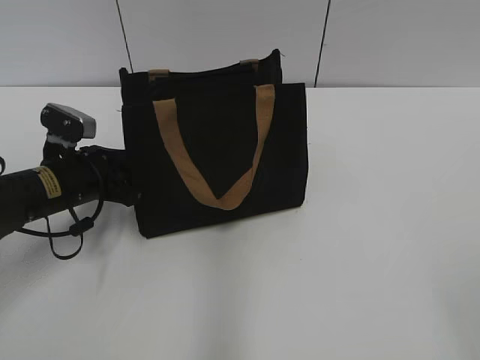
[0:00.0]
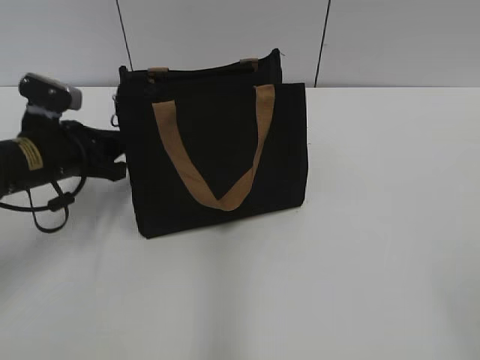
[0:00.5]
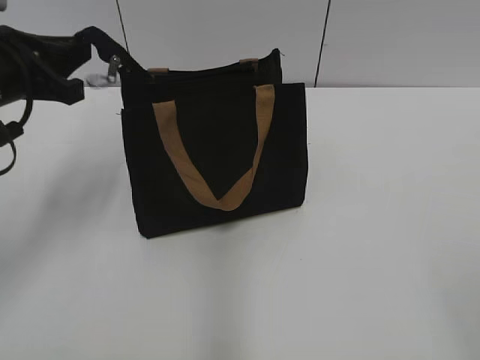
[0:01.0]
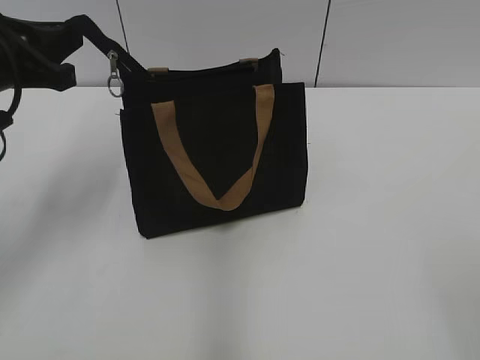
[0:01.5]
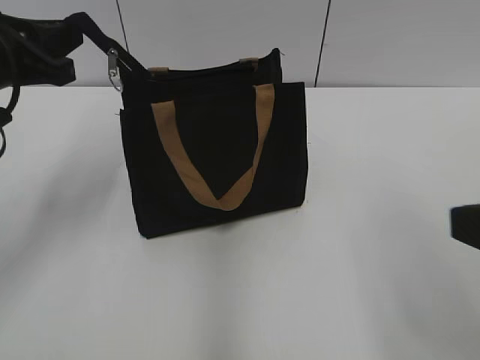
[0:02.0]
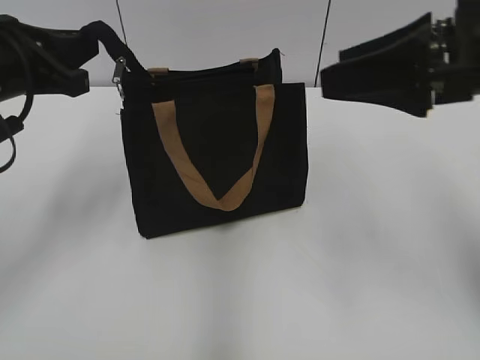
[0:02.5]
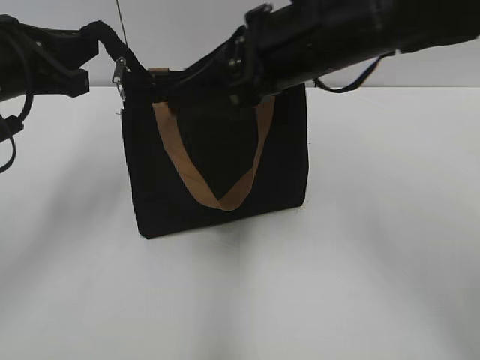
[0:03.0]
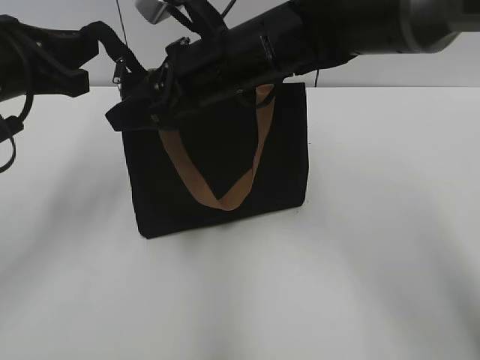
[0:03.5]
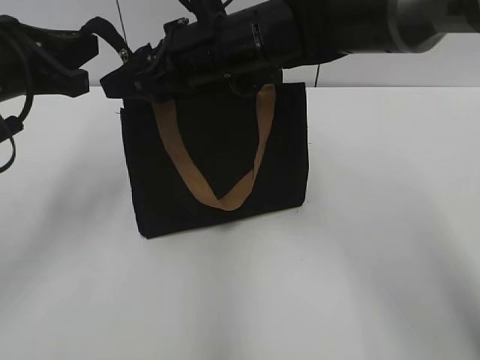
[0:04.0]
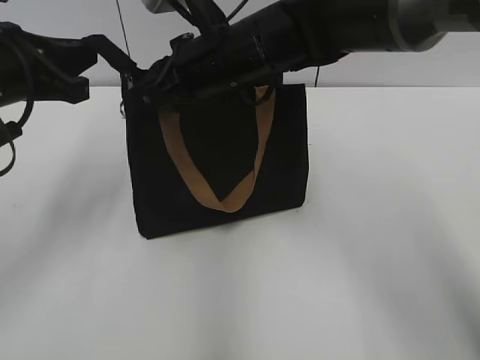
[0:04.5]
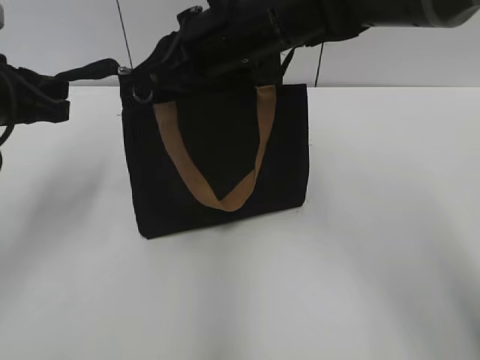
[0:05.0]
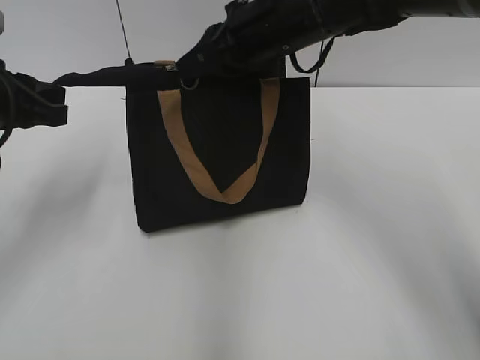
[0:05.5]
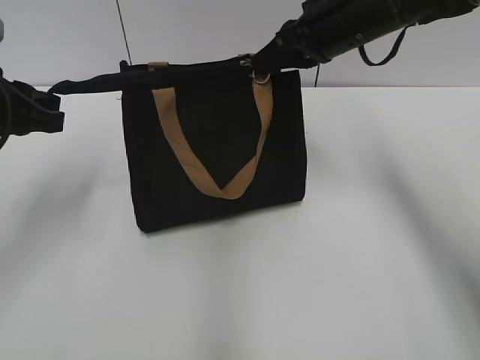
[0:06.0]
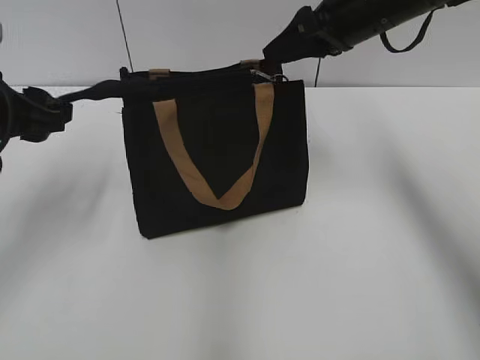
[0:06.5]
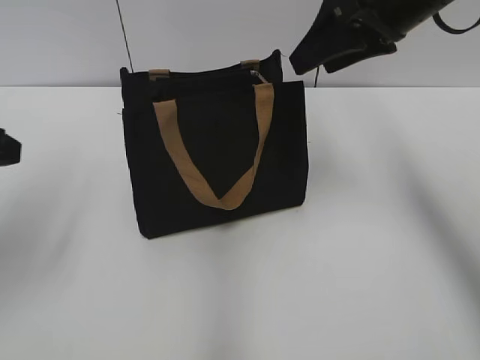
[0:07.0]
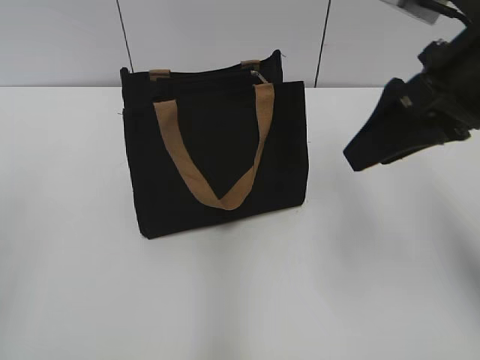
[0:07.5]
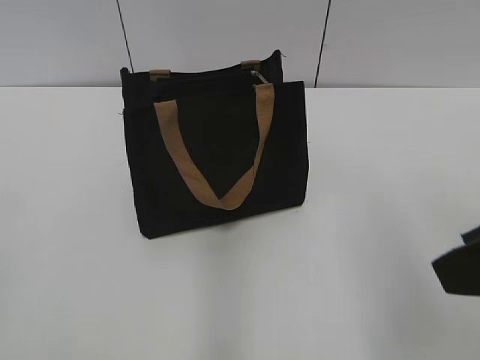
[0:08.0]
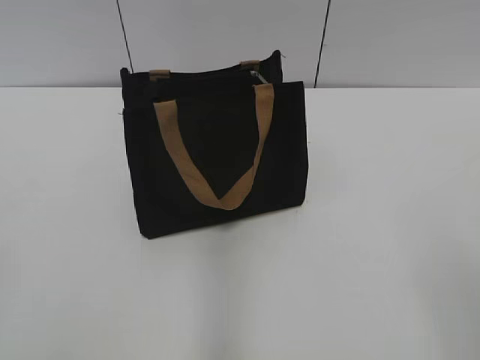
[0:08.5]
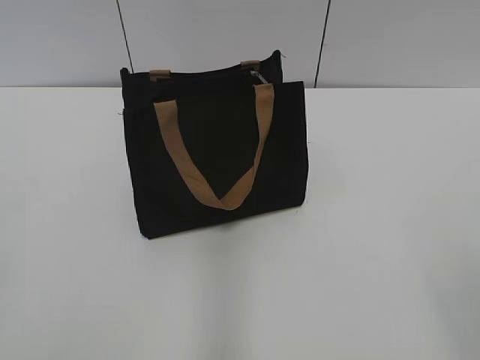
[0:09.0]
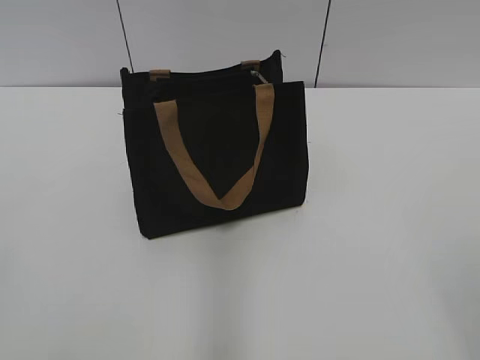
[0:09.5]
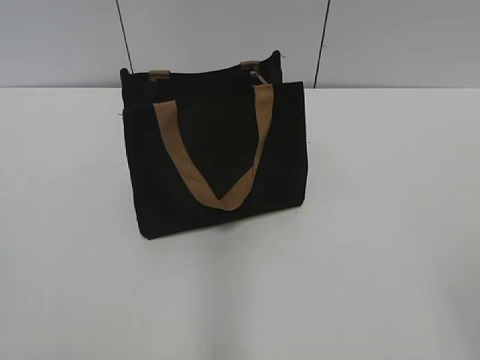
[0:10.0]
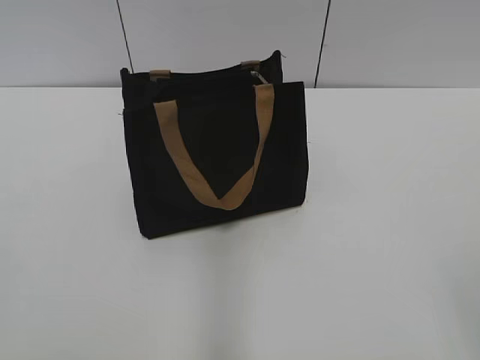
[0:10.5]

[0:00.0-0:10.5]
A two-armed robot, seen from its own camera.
Step, 0:00.0 to 0:06.0: Zip up the bag with your right hand.
0:00.0 to 0:02.0: The left gripper heads upward, covering about 15 cm, and closes. Meanwhile the right gripper goes approximately 10 cm forward.
0:02.0 to 0:04.0: The right gripper shifts roughly 40 cm forward and to the left.
0:04.0 to 0:06.5: The right gripper goes some 15 cm to the right, and closes. Meanwhile the left gripper opens.
0:06.5 to 0:08.5: The grippers both shift backward by roughly 35 cm. The right gripper opens up.

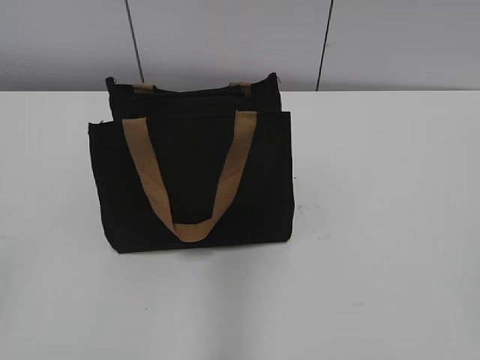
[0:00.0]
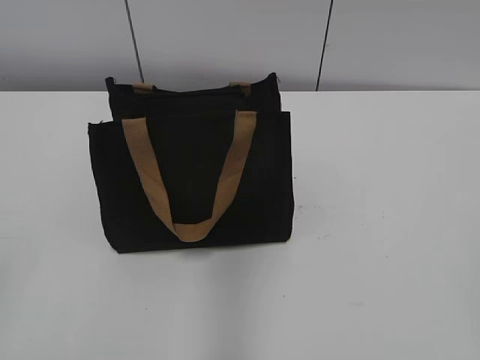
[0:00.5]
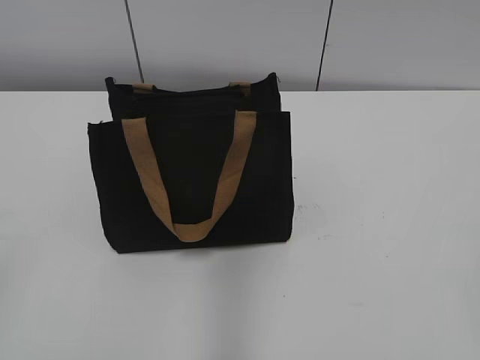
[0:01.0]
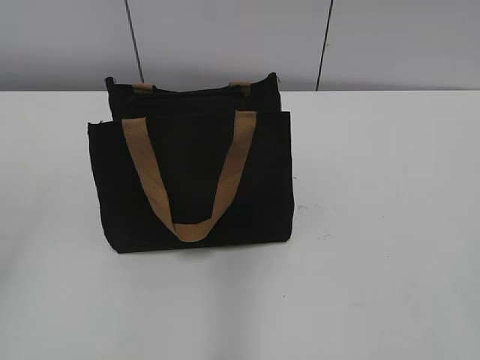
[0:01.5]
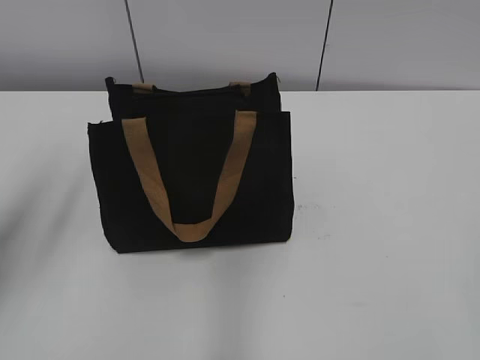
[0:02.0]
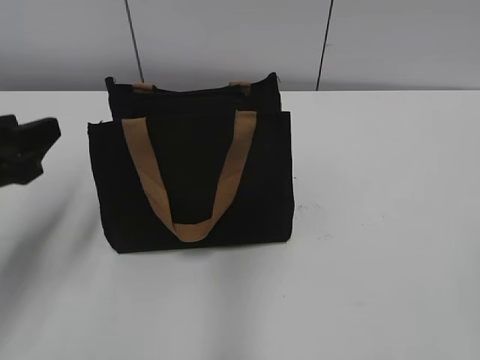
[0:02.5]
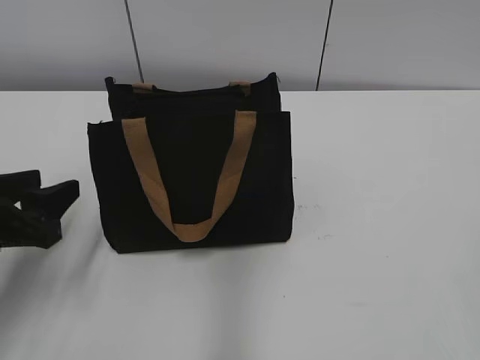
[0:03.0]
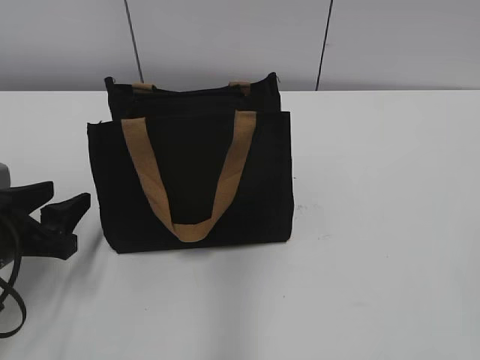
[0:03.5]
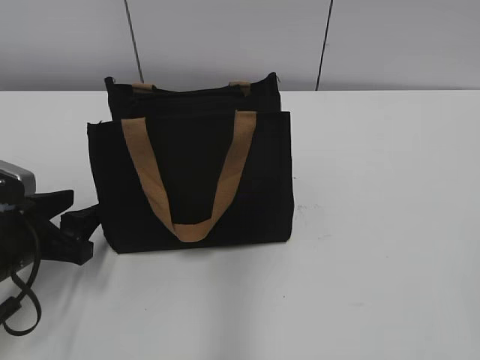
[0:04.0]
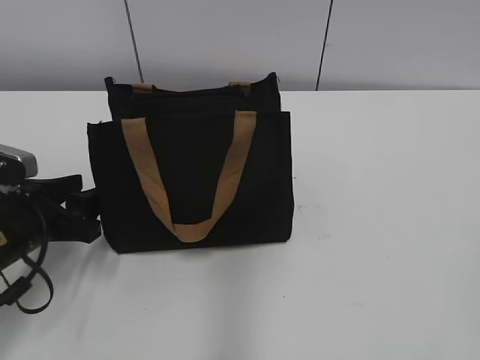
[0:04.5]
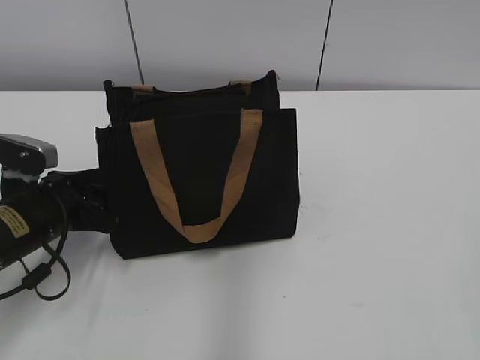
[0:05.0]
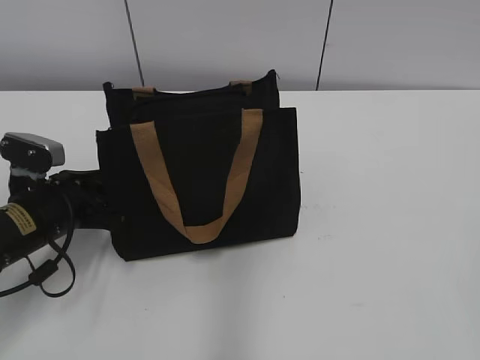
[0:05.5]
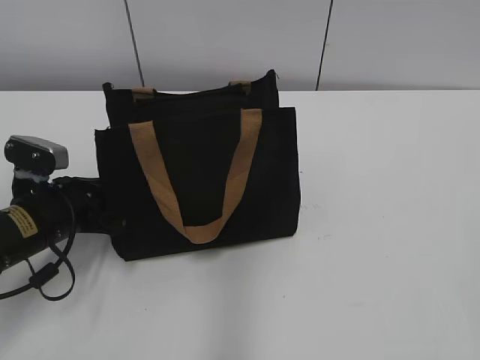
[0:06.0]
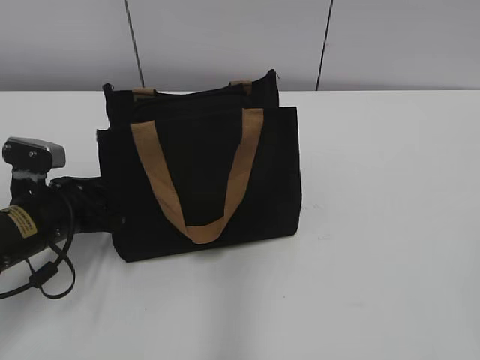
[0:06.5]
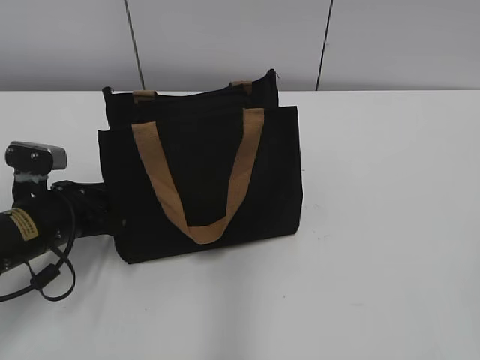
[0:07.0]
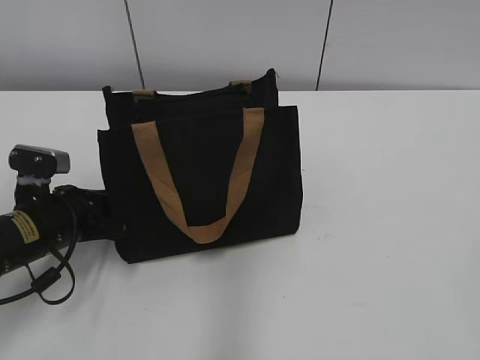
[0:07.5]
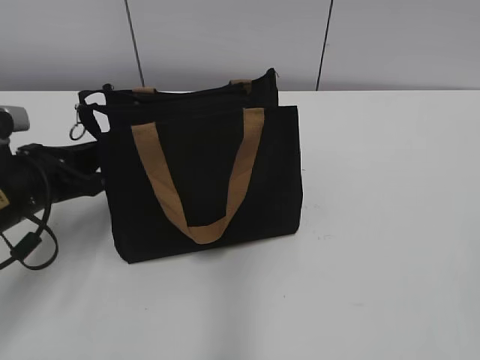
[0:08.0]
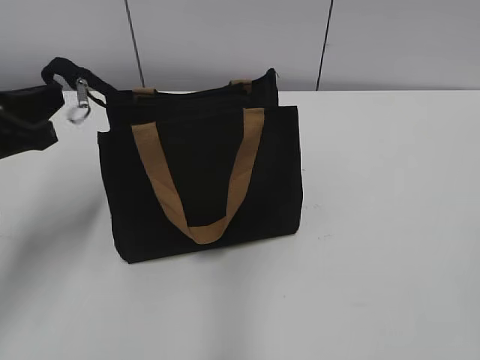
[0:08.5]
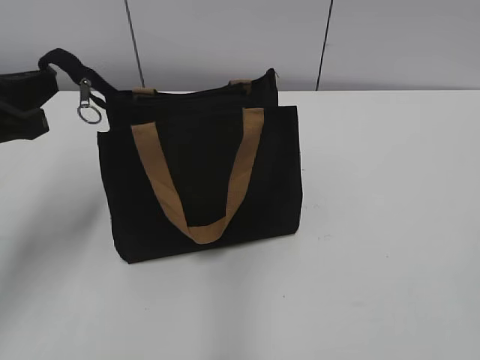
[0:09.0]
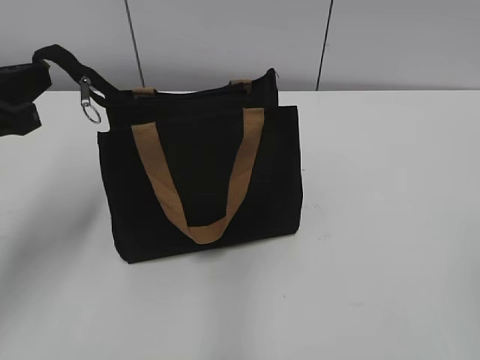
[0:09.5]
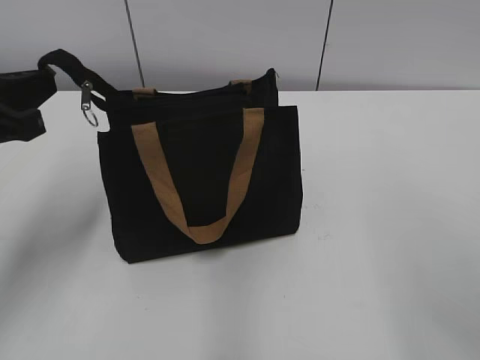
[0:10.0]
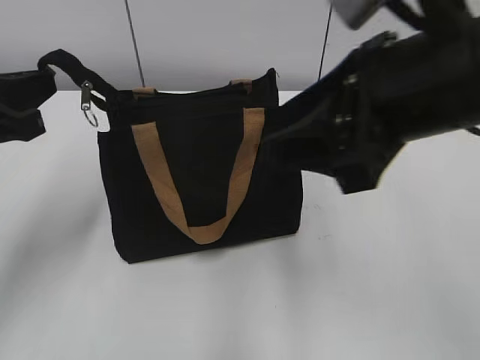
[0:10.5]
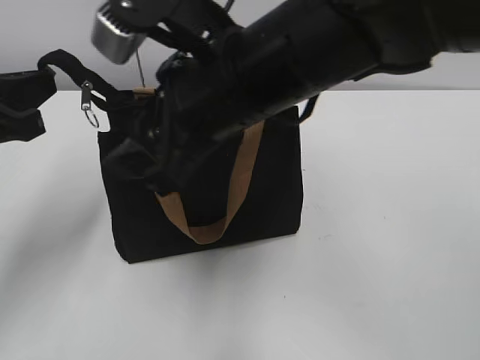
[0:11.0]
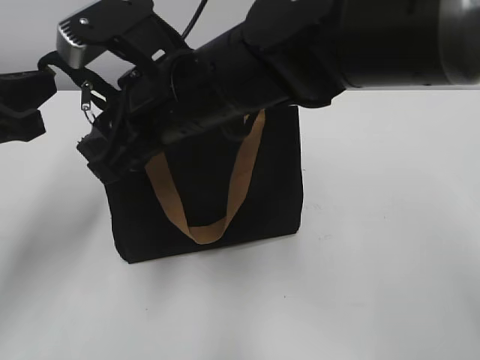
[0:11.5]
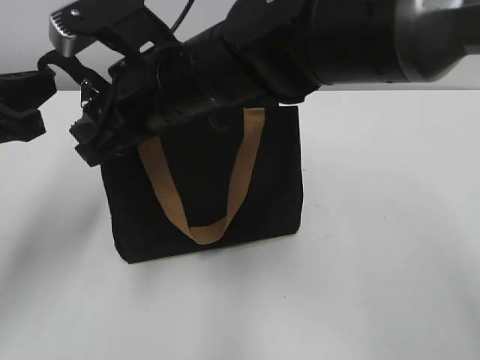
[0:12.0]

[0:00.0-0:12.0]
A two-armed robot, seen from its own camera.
0:02.0 to 0:04.0: The left gripper travels downward by some 20 cm.
0:04.0 to 0:06.0: The left gripper closes up.
0:06.0 to 0:08.0: The left gripper opens, then closes once more.
0:08.0 to 0:10.0: The right gripper travels forward and to the left by some 10 cm, while the left gripper shifts approximately 10 cm upward.
0:10.0 to 0:12.0: The right gripper goes about 35 cm to the left and forward.

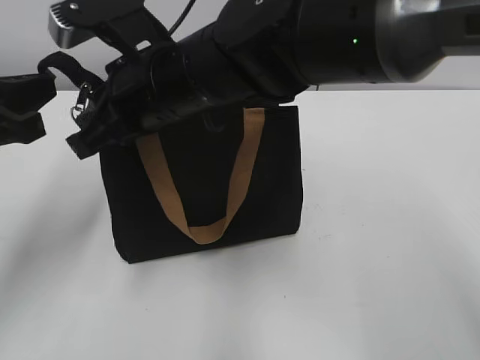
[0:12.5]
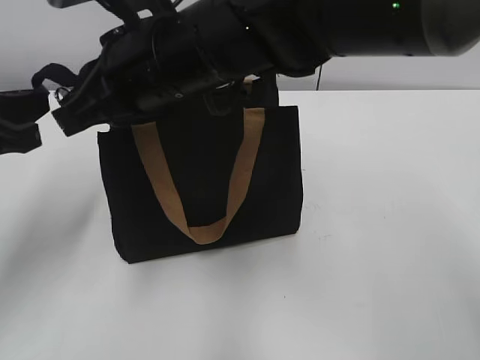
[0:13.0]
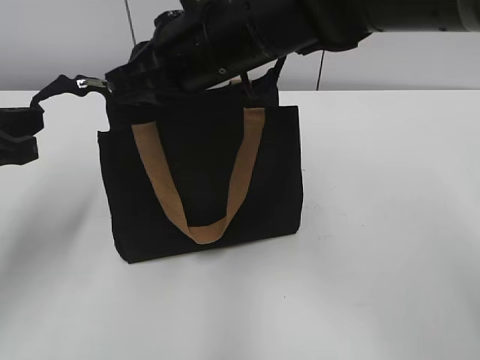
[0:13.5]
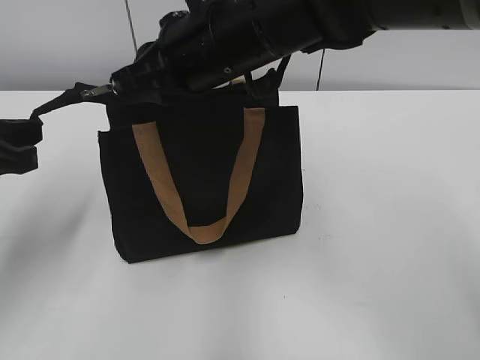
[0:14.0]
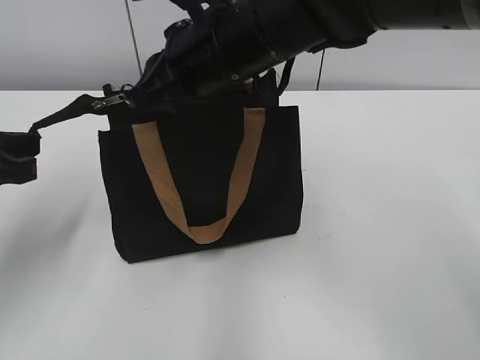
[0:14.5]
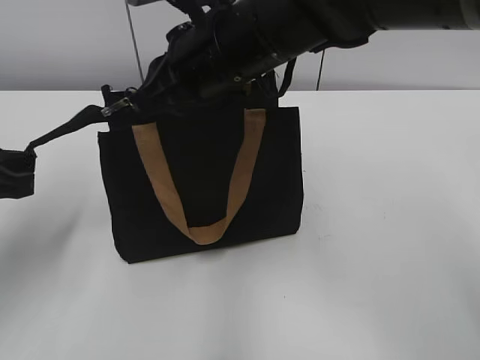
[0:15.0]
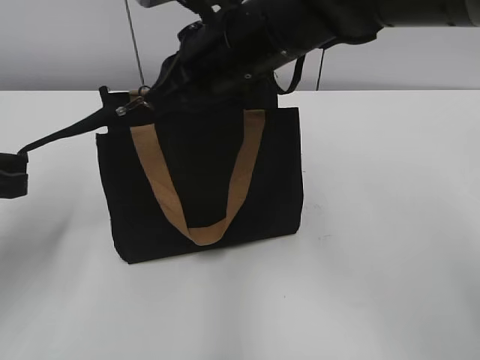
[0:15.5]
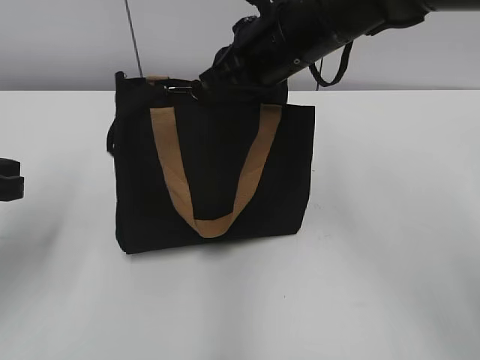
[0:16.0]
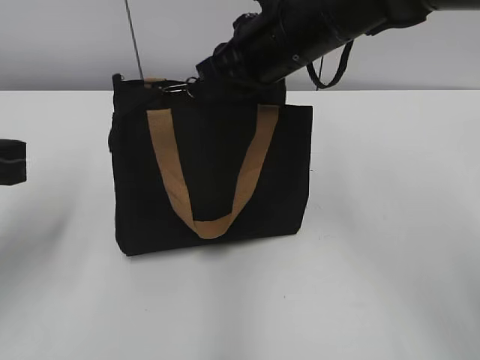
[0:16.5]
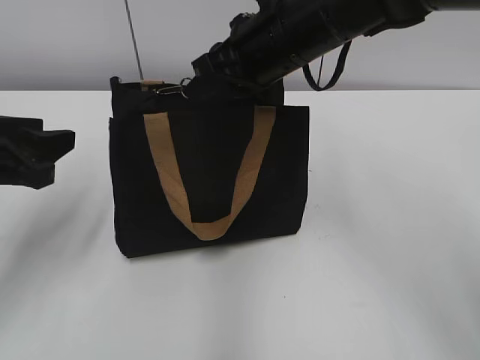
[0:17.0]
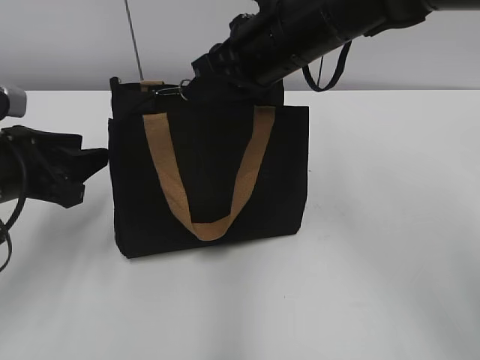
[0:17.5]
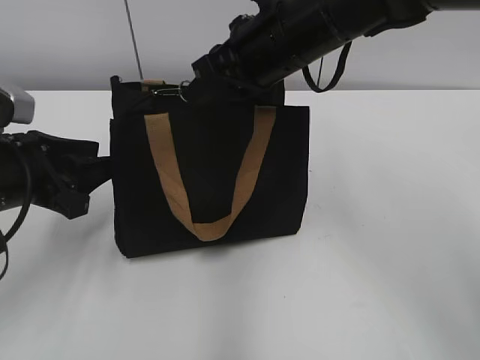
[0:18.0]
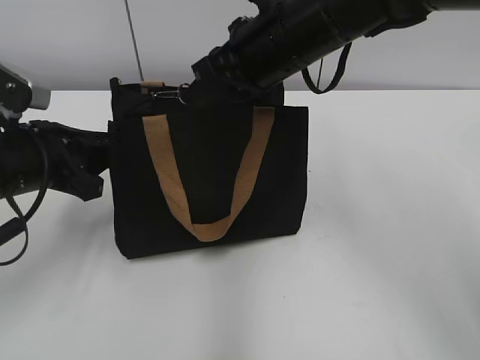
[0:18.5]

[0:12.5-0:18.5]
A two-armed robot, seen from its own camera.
0:12.5 to 0:14.5: The right gripper moves some 5 cm.
0:14.5 to 0:16.5: The right gripper shifts some 5 cm to the right.
0:16.5 to 0:18.5: The left gripper ends up approximately 10 cm from where it was, and opens and closes again.
